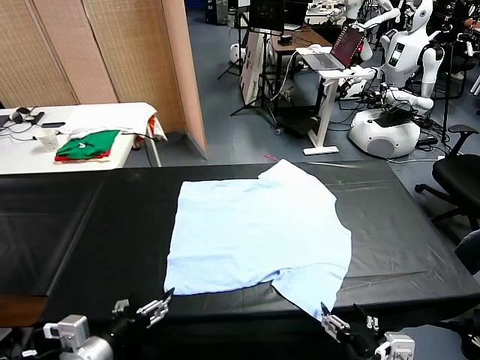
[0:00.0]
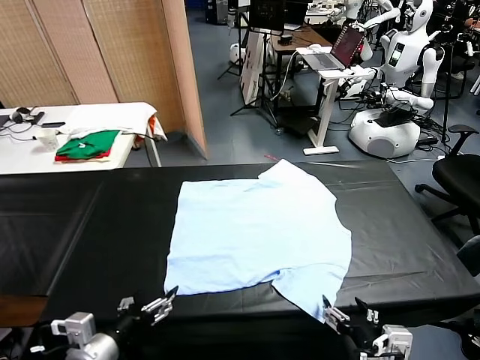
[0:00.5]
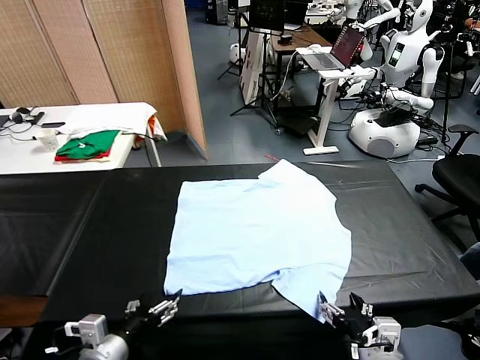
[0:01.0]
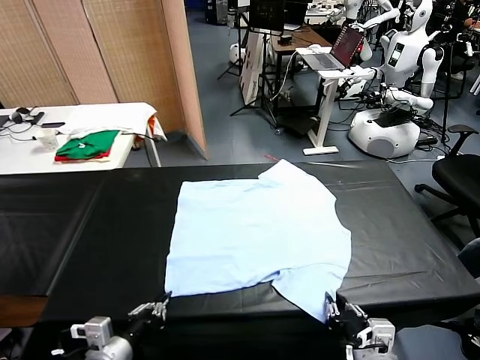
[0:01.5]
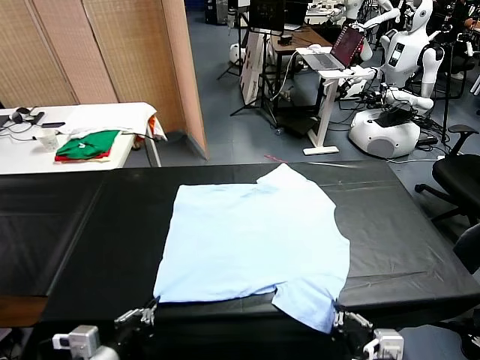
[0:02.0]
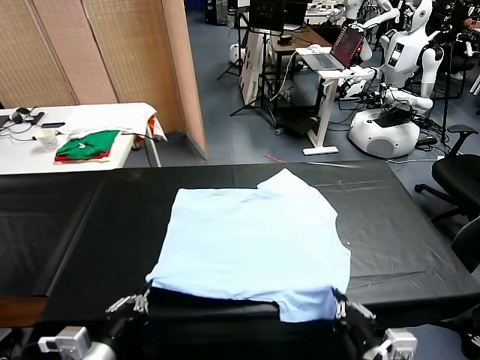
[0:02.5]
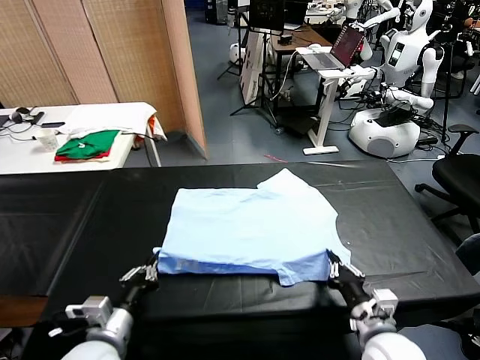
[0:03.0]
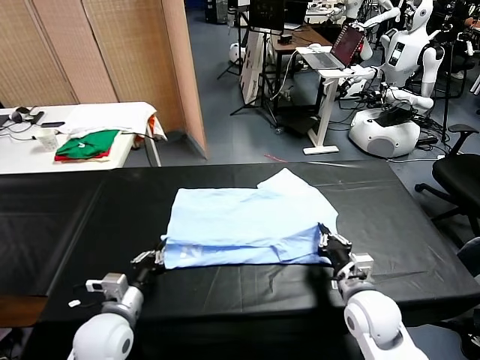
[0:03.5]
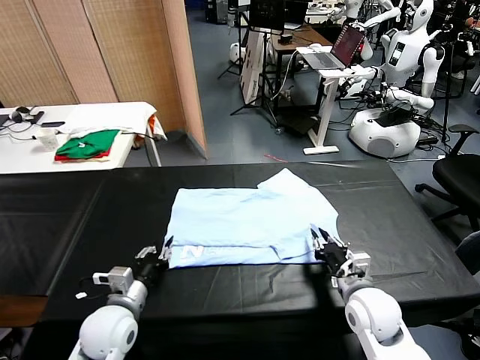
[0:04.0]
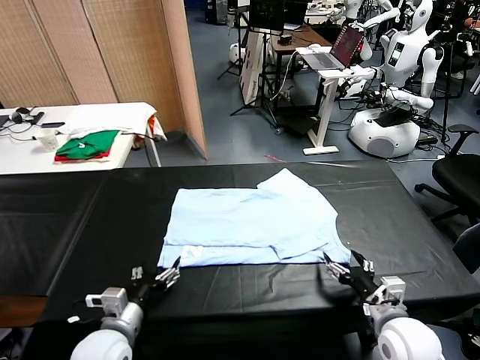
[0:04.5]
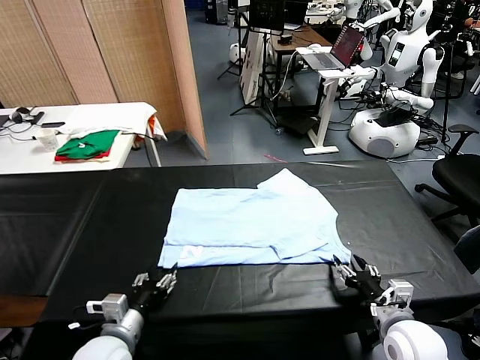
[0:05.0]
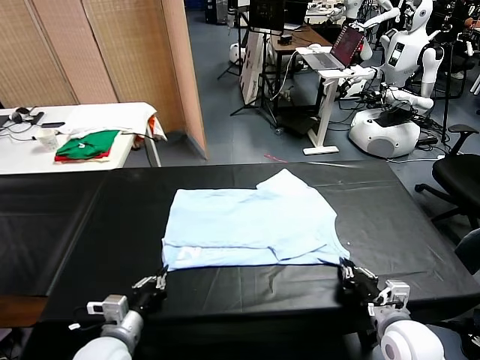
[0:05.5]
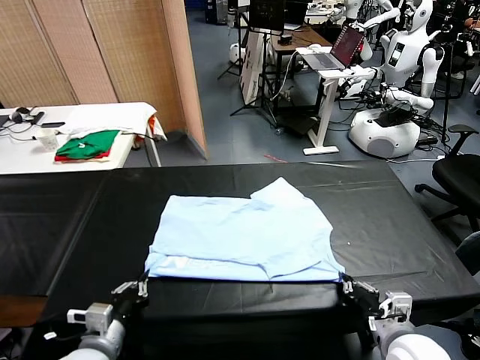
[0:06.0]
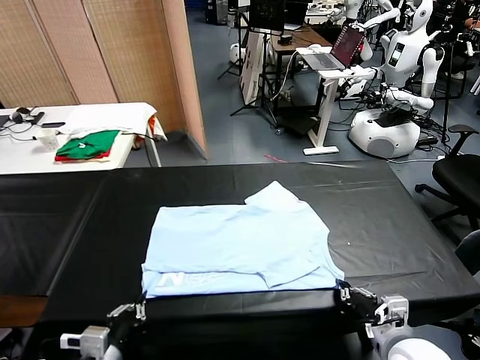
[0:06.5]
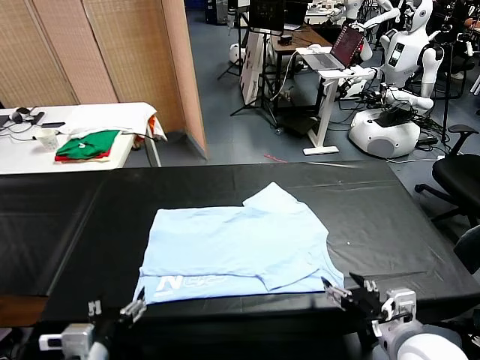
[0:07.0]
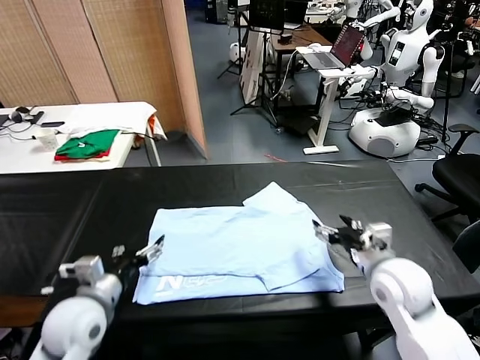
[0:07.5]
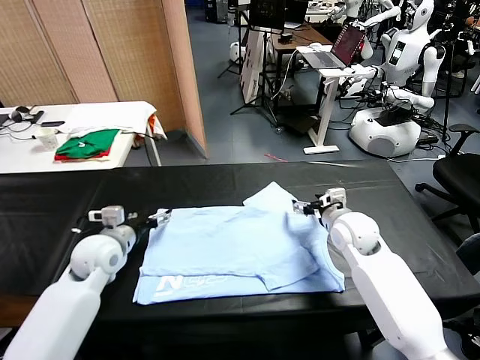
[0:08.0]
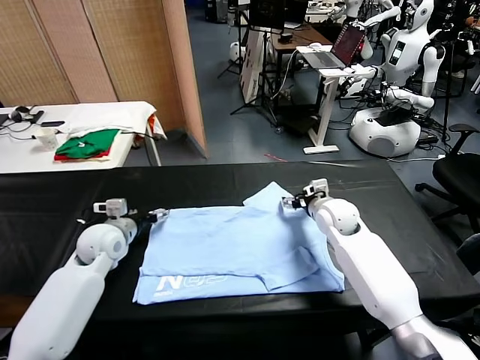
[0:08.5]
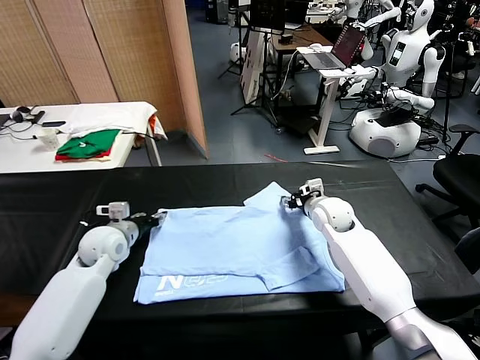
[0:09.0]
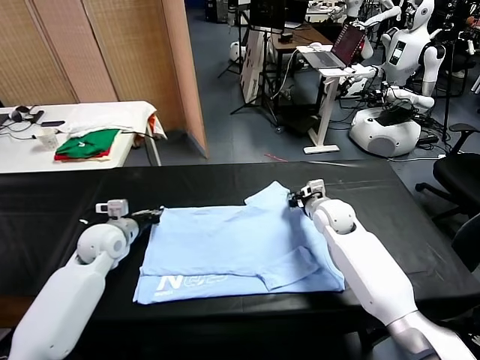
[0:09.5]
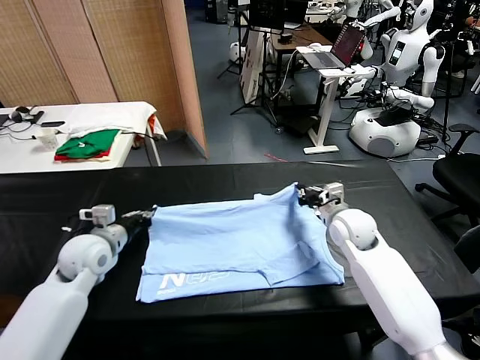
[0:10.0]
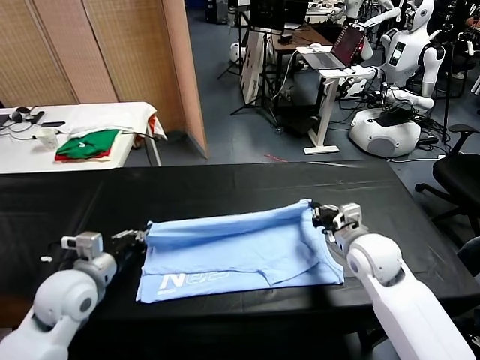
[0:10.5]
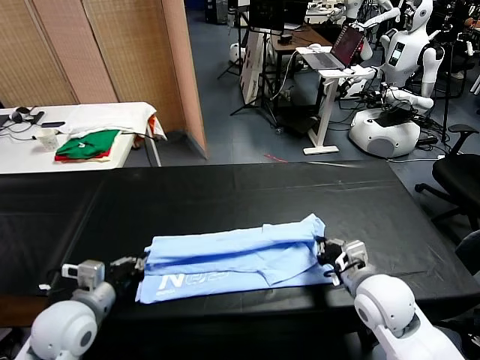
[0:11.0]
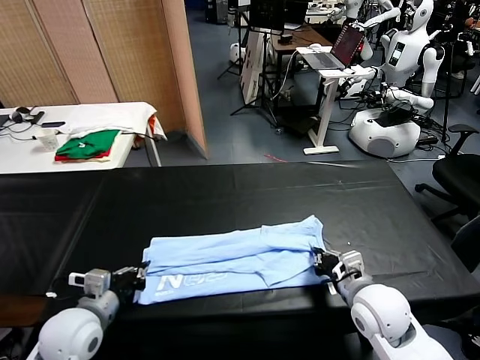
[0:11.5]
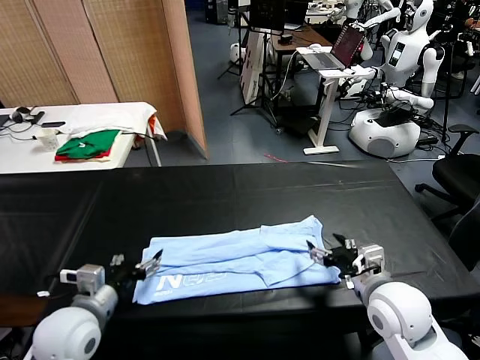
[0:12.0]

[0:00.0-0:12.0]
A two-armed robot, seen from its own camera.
Task of the whole recording: fold and organize the clothes.
Step, 0:00.0 to 0:01.5: use both grippers simultaneously to clamp the lower edge of the clothing fabric.
Step, 0:02.0 to 0:04.0: use both grippers to drag the lower edge of the fabric forward and fold it over the upper edge.
Step, 0:04.5 to 0:06.5: Drag the clothes downward with both gripper.
Step, 0:07.0 to 0:09.0: use both grippers simultaneously to clamp the upper edge of the clothing fabric.
Step, 0:09.5 to 0:11.5: use both grippers to drag the upper edge of the fabric backward and fold it over the lower edge.
0:02.0 to 0:04.0: The right gripper is displaced forward by some 15 cm, and opens its fingers. The left gripper moves forward and downward, some 15 cm, and opens.
0:04.0 to 0:06.0: Both grippers move backward, about 10 cm. The right gripper closes its fingers, while the left gripper closes its fingers.
0:06.0 to 0:08.0: Both grippers travel together forward, roughly 20 cm. The left gripper opens. The right gripper opens.
0:08.0 to 0:10.0: The left gripper closes its fingers, while the right gripper closes.
0:10.0 to 0:12.0: The grippers both shift backward by some 15 cm. The right gripper opens up, while the left gripper opens up.

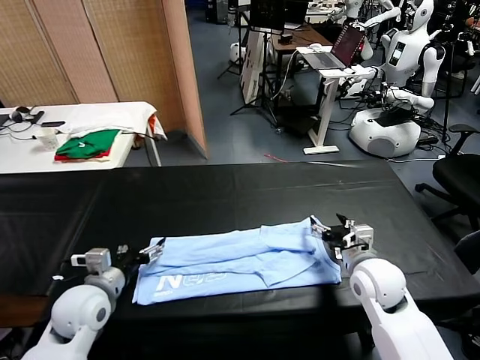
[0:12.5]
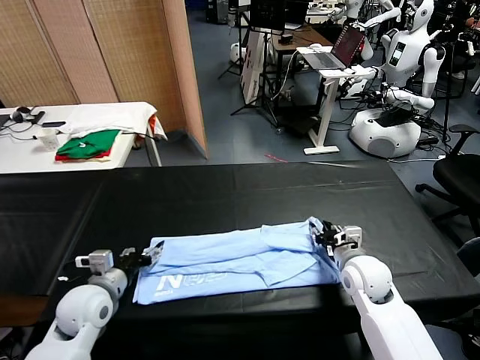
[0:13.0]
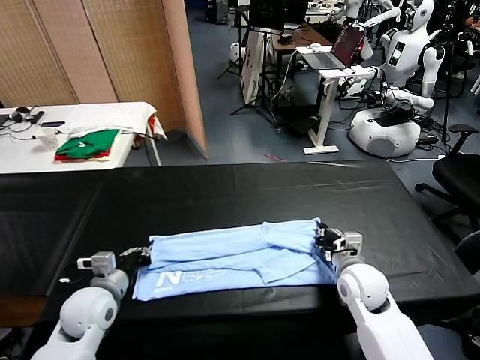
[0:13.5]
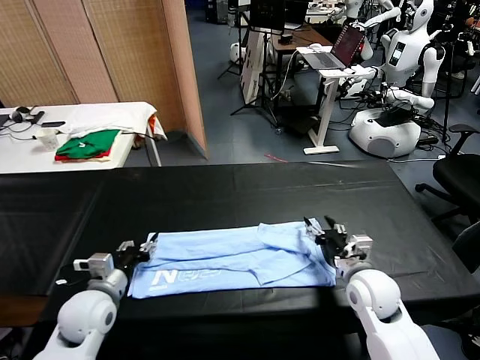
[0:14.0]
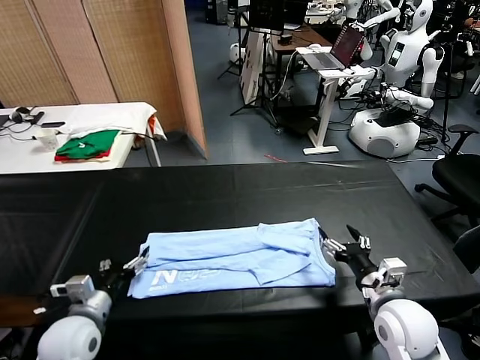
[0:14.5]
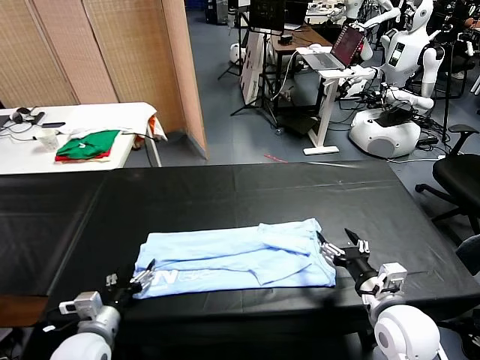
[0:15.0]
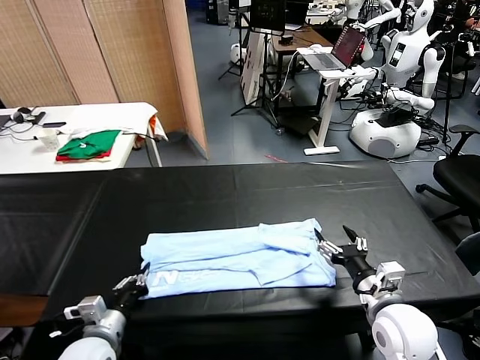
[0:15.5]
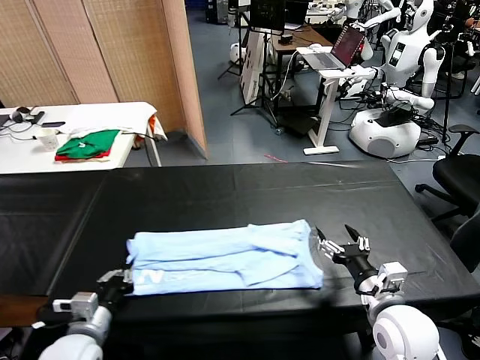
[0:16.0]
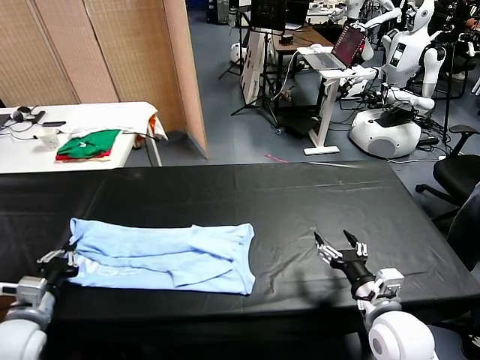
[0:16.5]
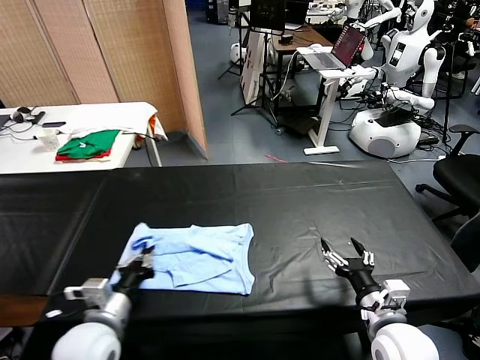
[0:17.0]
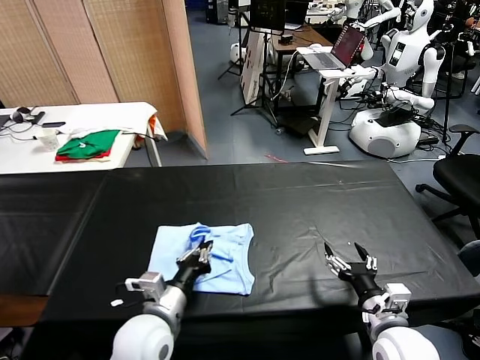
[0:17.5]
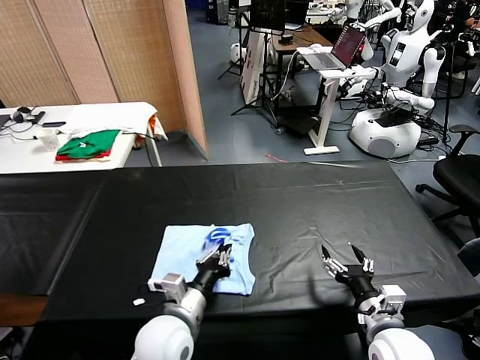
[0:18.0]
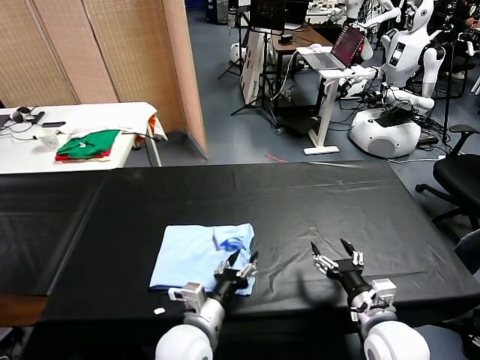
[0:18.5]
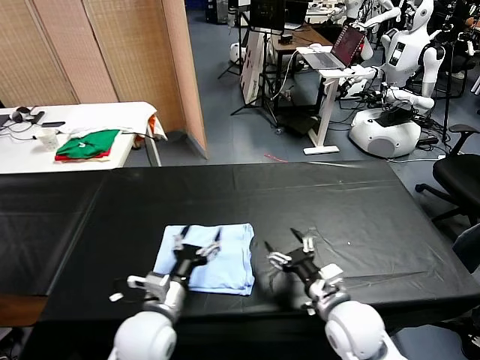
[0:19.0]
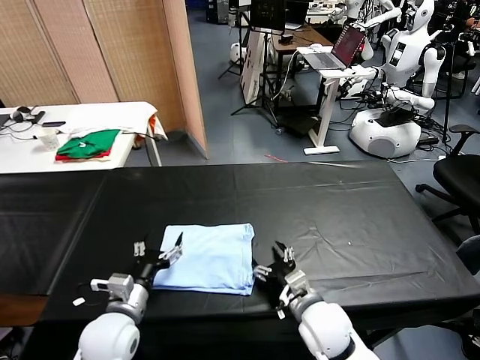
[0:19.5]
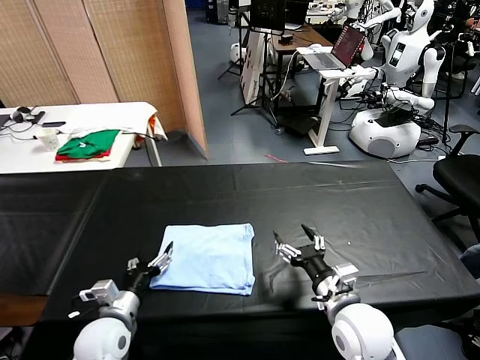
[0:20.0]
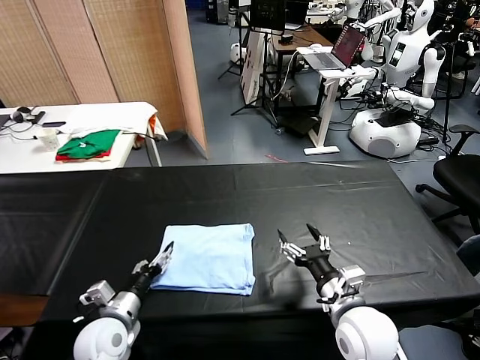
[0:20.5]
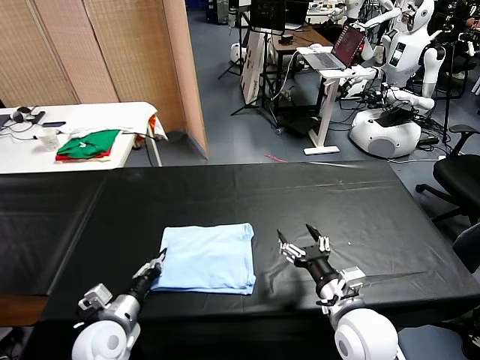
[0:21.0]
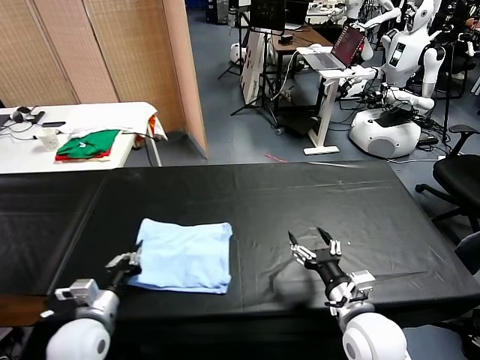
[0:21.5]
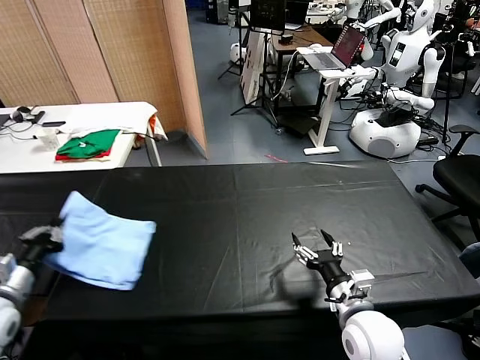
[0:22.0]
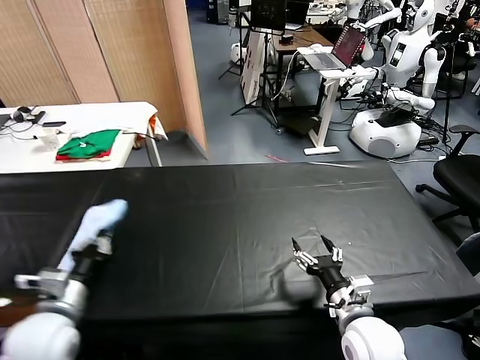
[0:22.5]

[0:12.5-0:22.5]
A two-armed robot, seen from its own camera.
Task of the whole recording: fold and organize the clothes.
Step, 0:12.5 to 0:15.0: use the left gripper to clamp the left edge of the fabric.
Step, 0:16.0 to 0:18.5: use the left gripper to drag the left edge of the fabric to the left and folds it over the right edge.
0:12.5 to 0:14.5: The left gripper shifts approximately 10 cm backward, and closes and opens again; the right gripper is displaced backward by roughly 10 cm, and closes, then reopens.
0:14.5 to 0:16.5: The left gripper heads upward, covering some 5 cm, moves about 10 cm to the left and comes back, and closes up.
0:16.5 to 0:18.5: The left gripper is displaced to the right by roughly 20 cm, and opens up.
0:18.5 to 0:20.5: The right gripper travels to the left and back again, some 10 cm each way; the left gripper heads to the left, covering roughly 20 cm.
0:20.5 to 0:22.5: The left gripper is displaced upward by about 10 cm, and closes up.

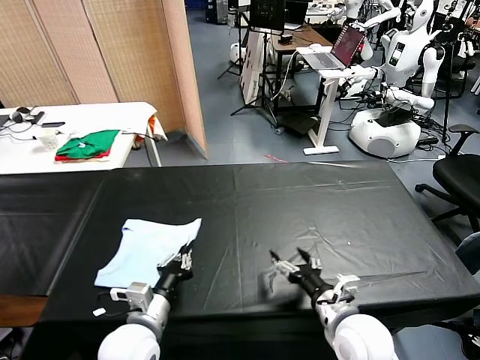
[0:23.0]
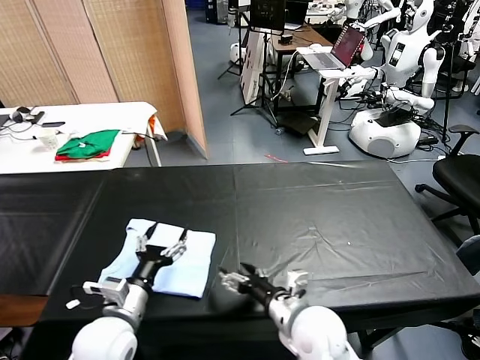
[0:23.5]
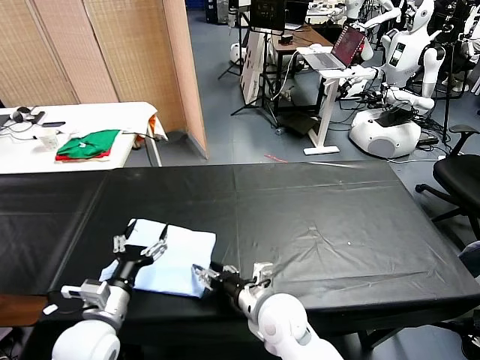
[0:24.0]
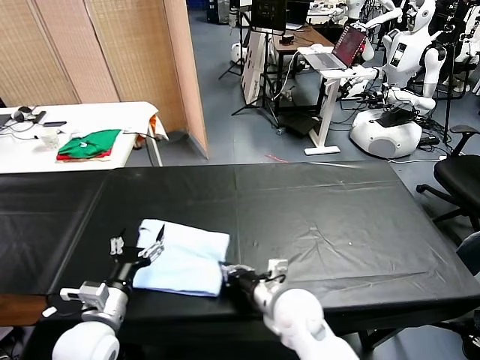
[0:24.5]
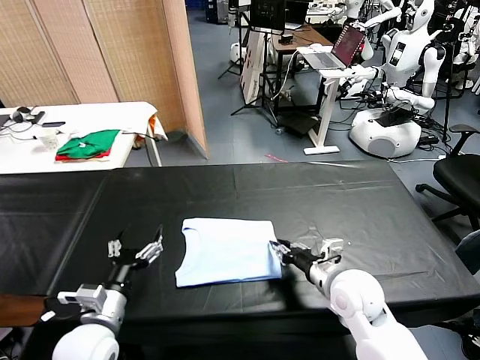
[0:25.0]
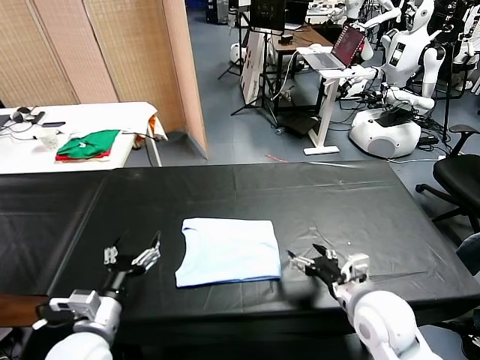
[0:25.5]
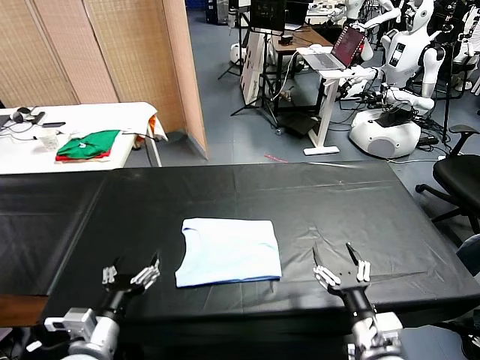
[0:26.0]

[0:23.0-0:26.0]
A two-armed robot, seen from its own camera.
Task of the whole recording: fold and organize the clothes.
Step, 0:23.5 to 0:25.0: Drag the clothes to the center of the table.
0:23.0 to 0:24.5: The right gripper moves to the left and forward, some 10 cm, and closes up. The left gripper travels to the left by roughly 5 cm, and opens up.
0:24.5 to 0:26.0: The right gripper goes about 20 cm backward and to the right, and opens its fingers. Meanwhile the left gripper shifts approximately 5 cm backward.
